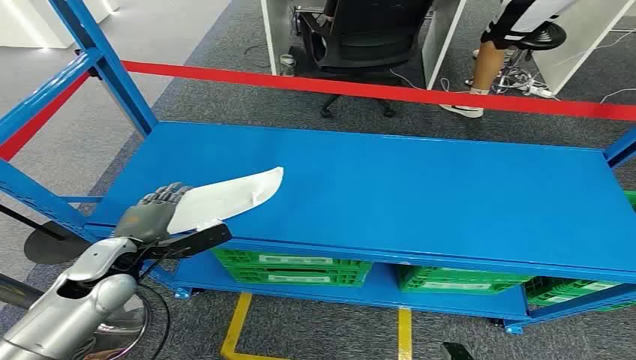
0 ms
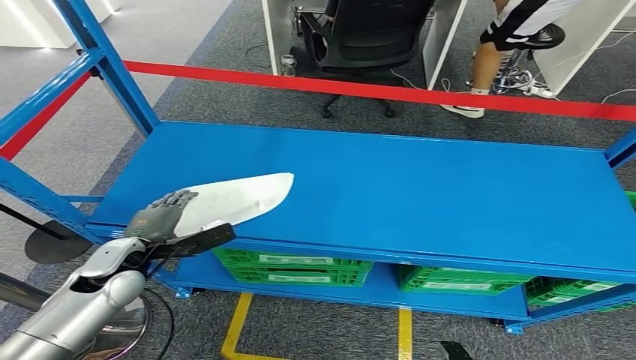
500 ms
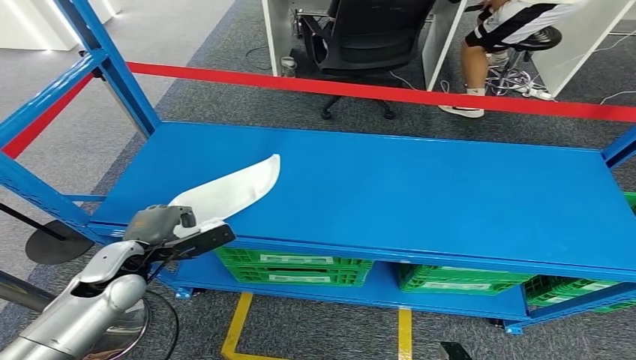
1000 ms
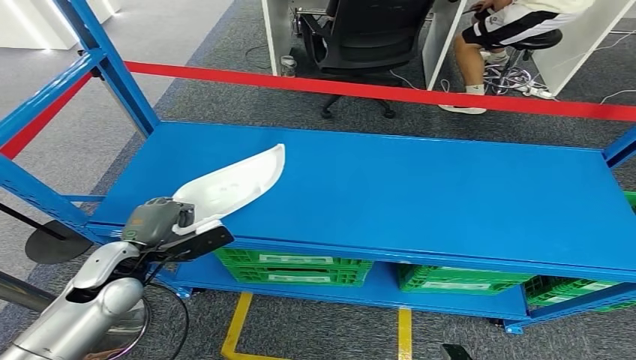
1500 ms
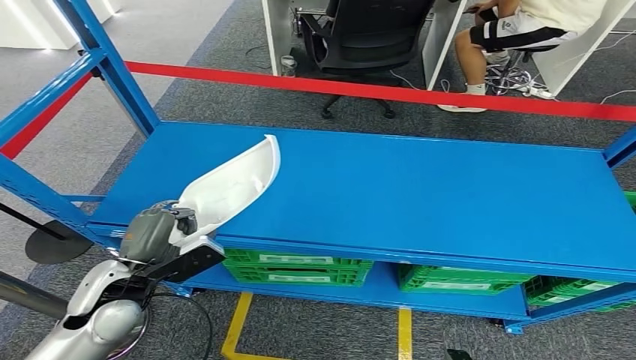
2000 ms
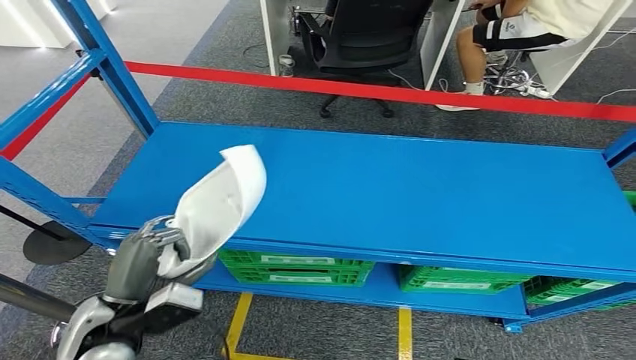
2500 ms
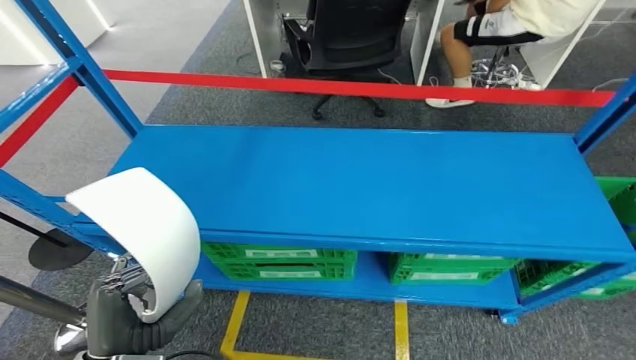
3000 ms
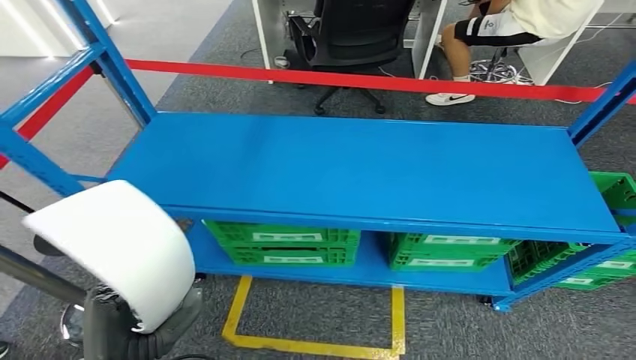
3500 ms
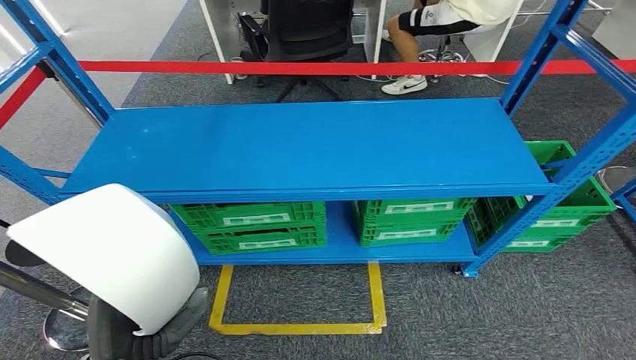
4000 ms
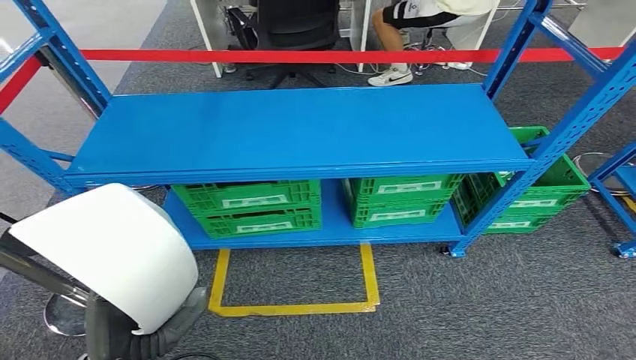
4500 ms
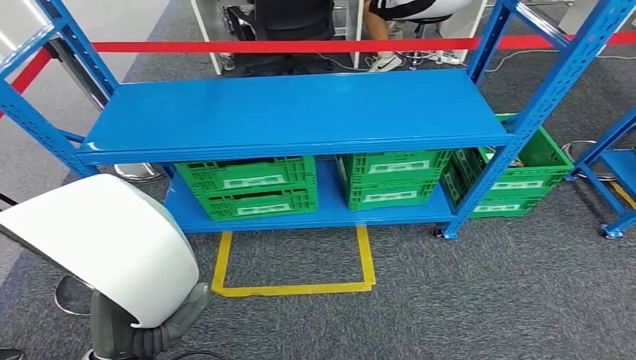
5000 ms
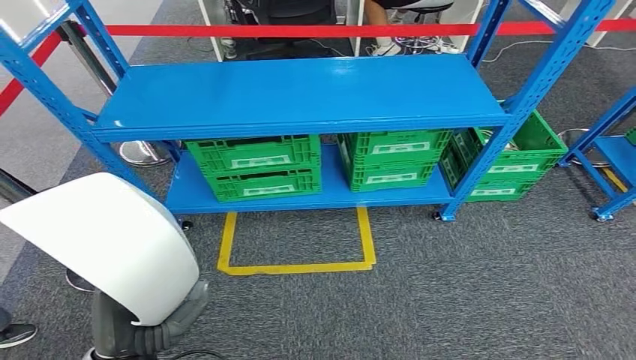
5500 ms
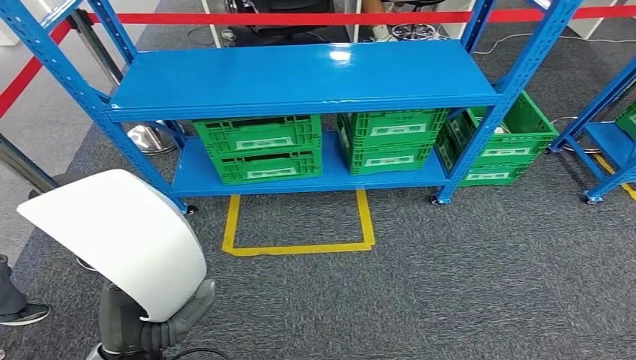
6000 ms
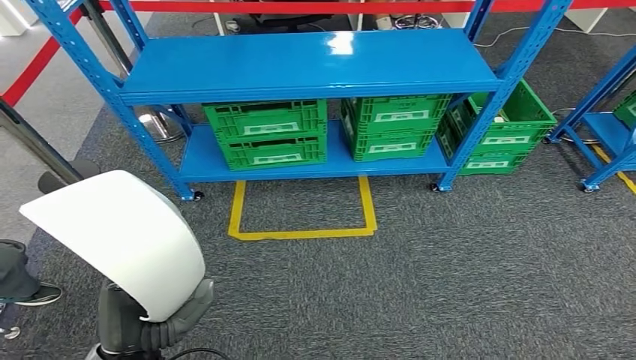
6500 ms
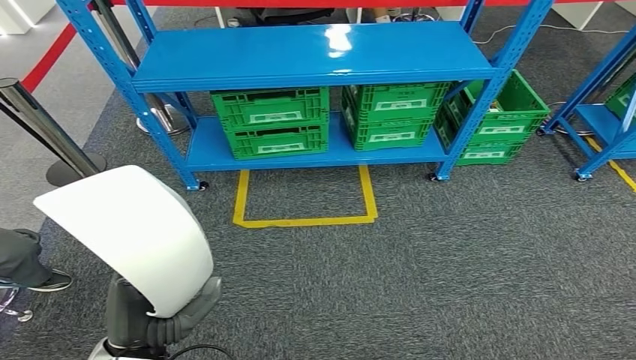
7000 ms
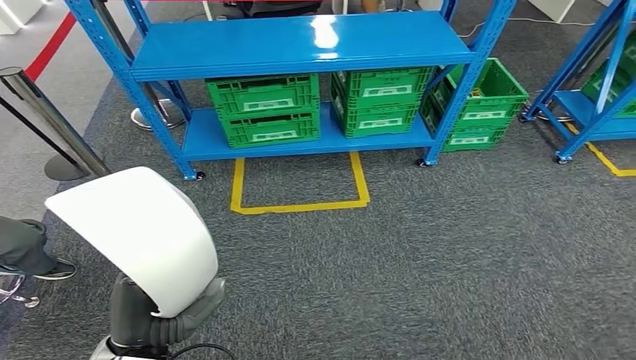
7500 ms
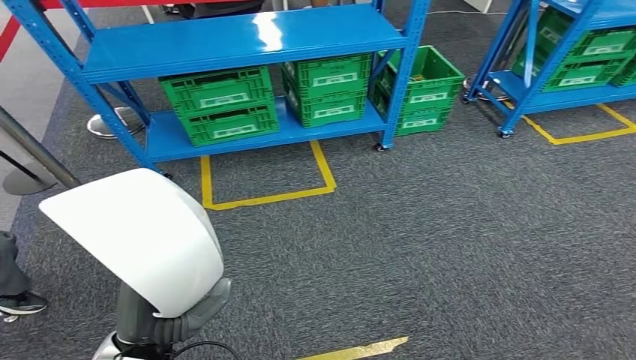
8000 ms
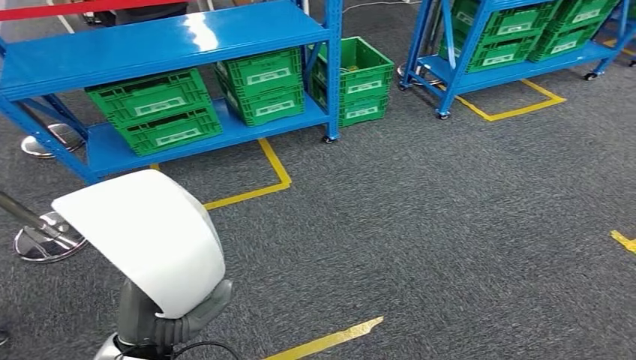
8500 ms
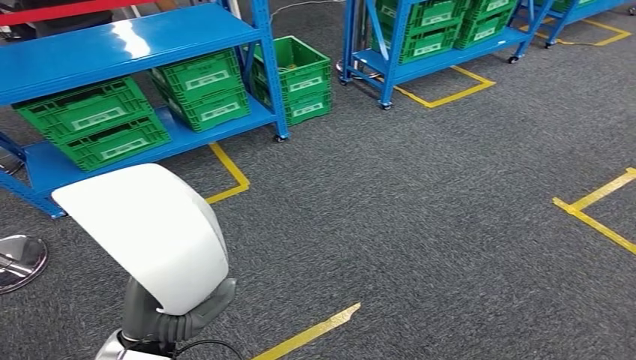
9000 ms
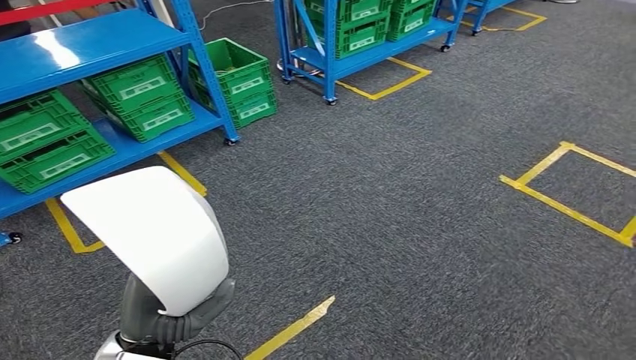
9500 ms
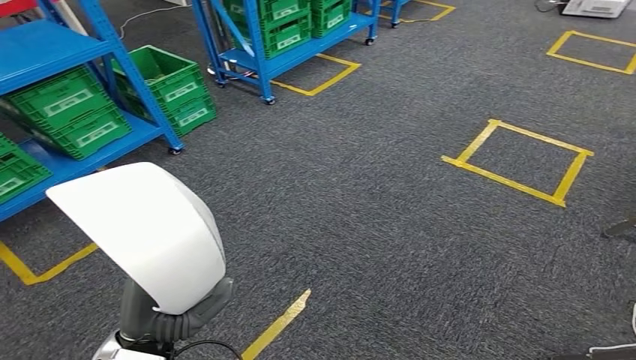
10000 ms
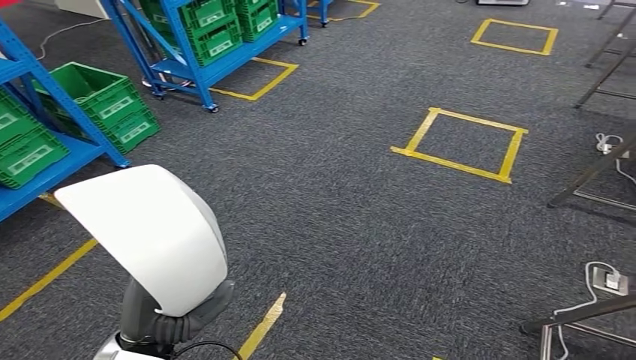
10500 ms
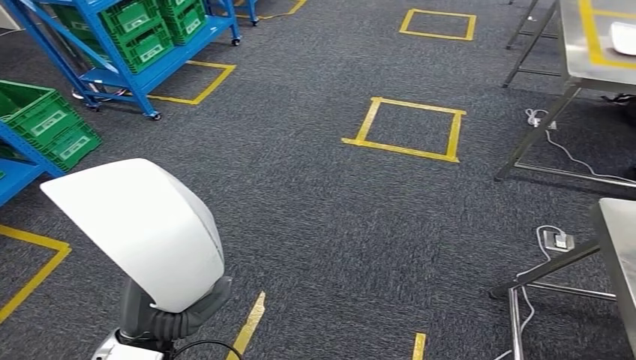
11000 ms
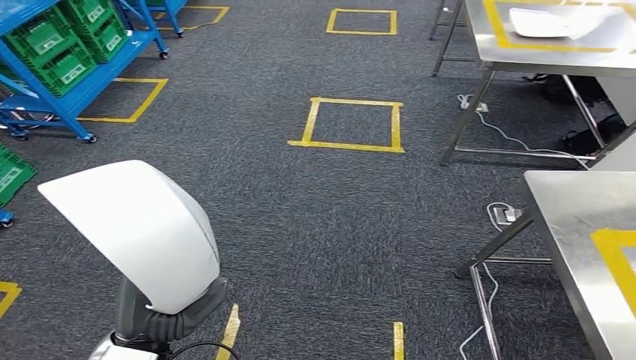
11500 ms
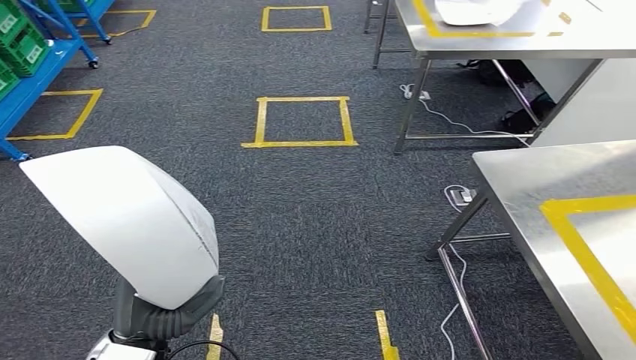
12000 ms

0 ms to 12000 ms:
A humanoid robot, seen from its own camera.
Step, 0 ms to 3500 ms: Pick up the small parts from the shelf.

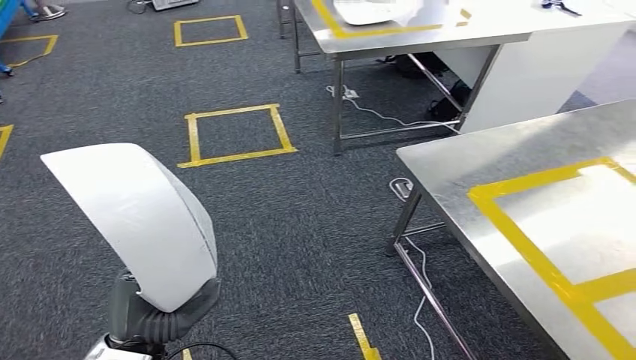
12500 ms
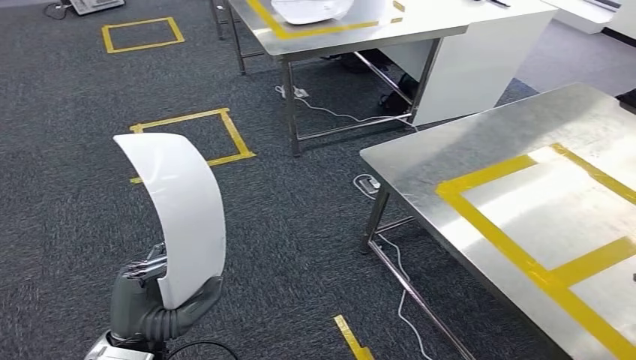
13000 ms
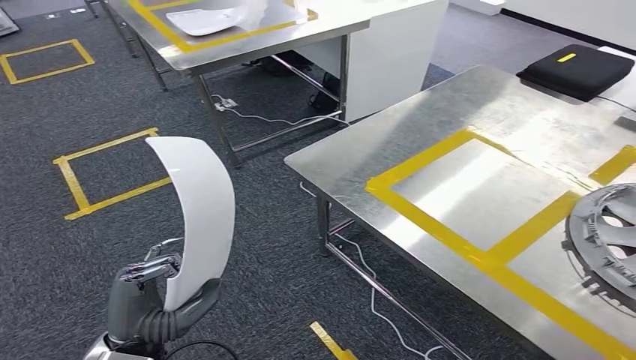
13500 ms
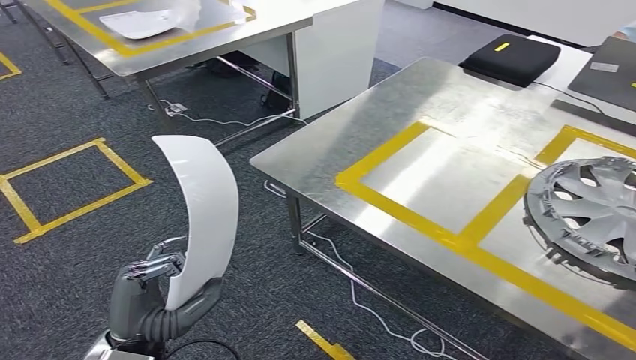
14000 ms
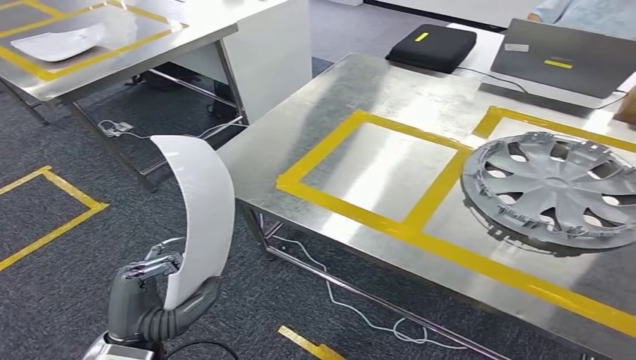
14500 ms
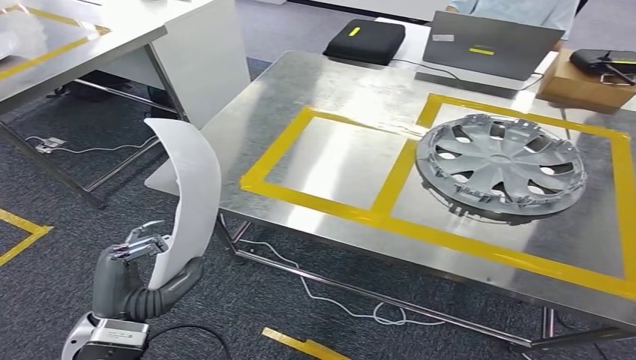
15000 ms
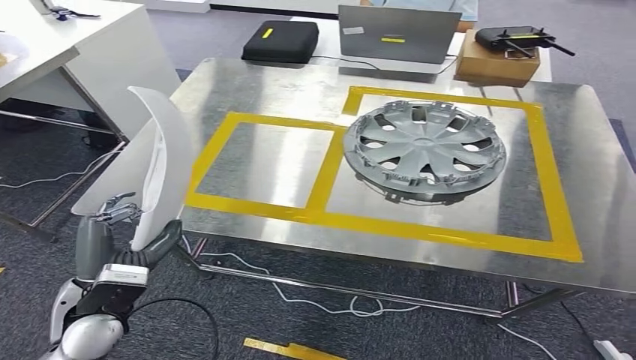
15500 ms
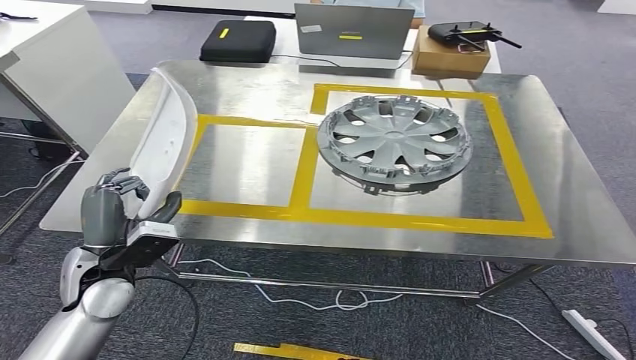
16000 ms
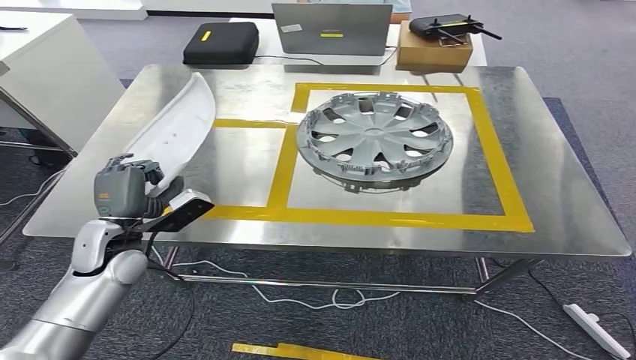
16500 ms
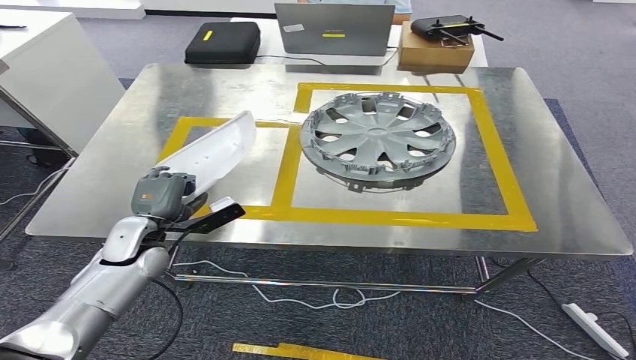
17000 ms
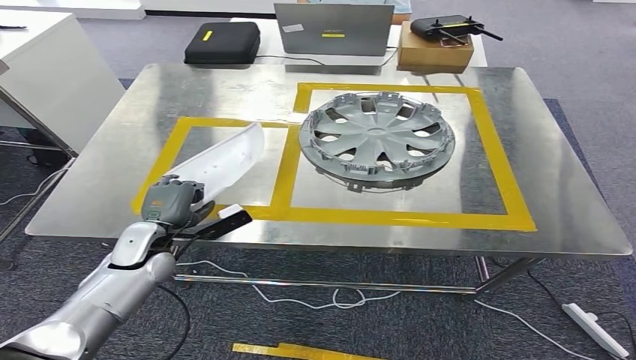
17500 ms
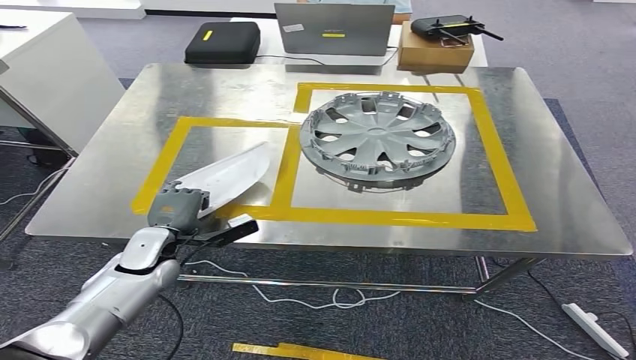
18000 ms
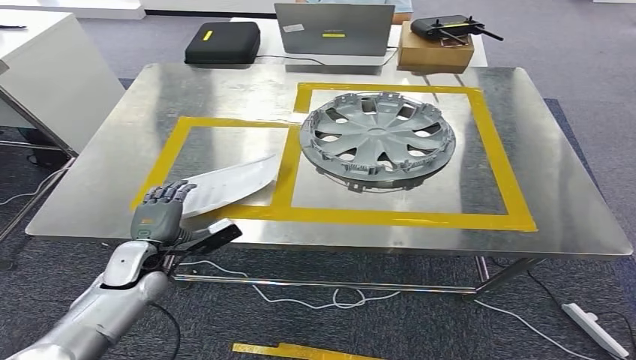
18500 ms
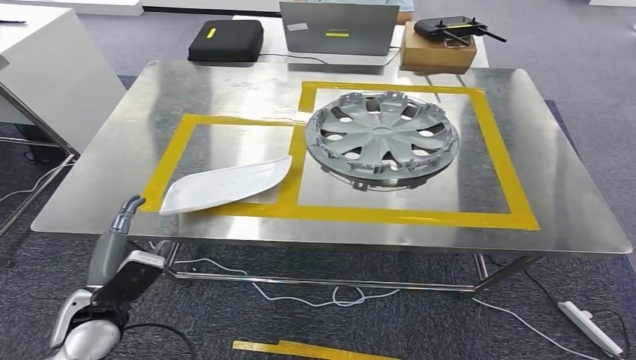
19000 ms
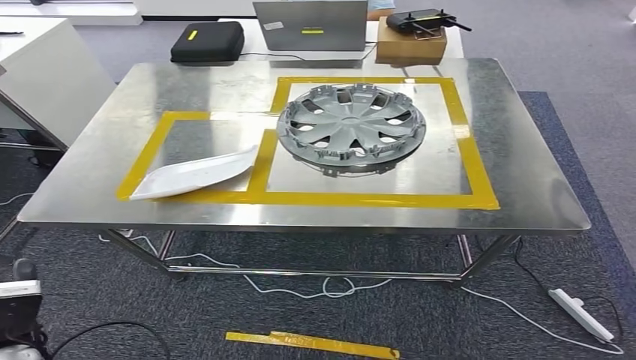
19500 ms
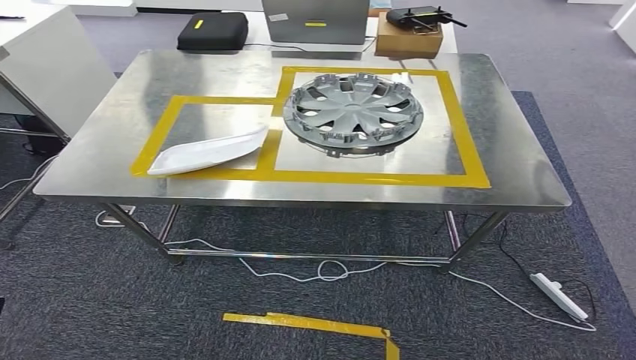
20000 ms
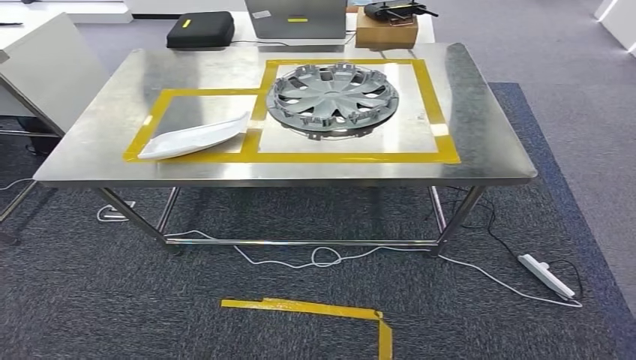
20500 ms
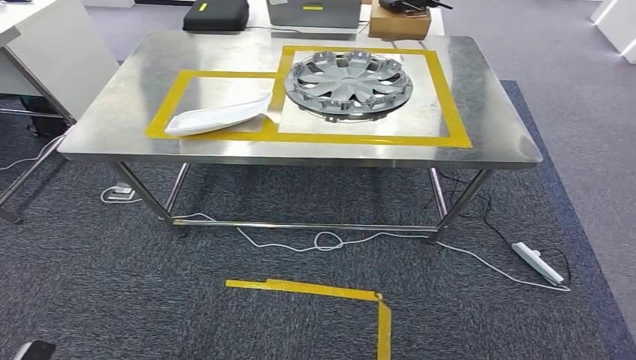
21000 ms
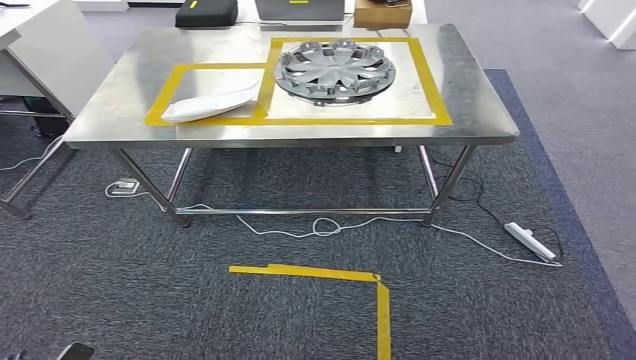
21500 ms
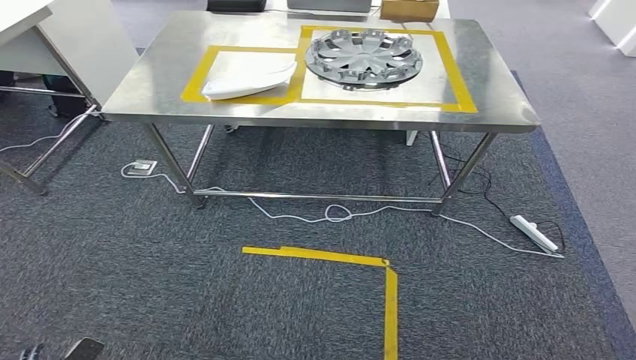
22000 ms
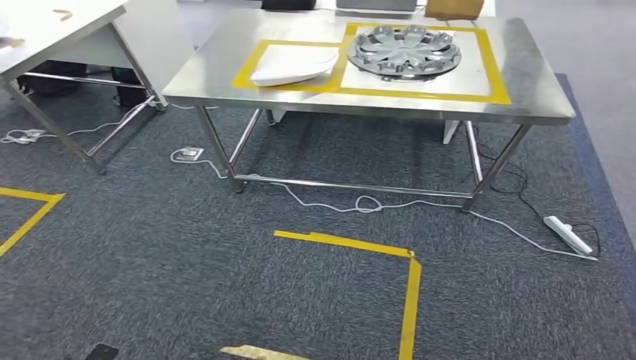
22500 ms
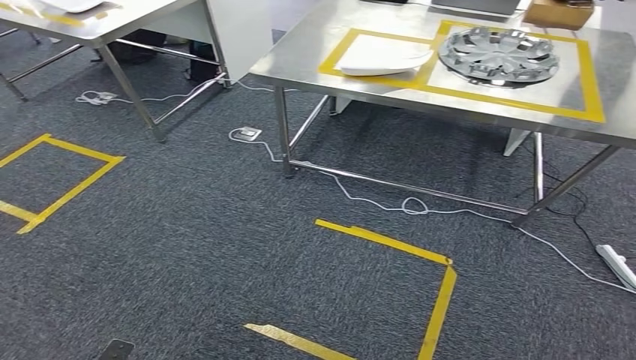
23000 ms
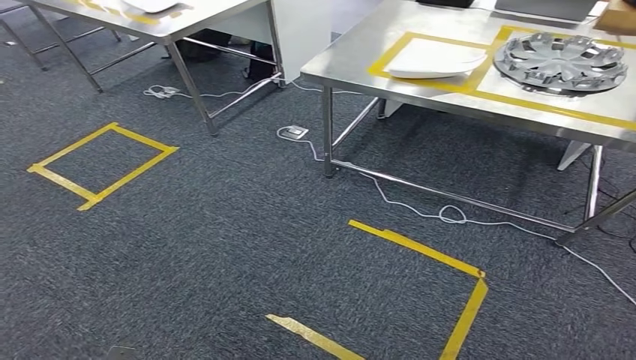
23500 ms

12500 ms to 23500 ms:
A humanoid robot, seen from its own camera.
Step, 12500 ms to 14500 ms: Move the small parts to the workbench.
Step, 15000 ms to 20000 ms: Insert the small parts into the corresponding holes on the workbench.
